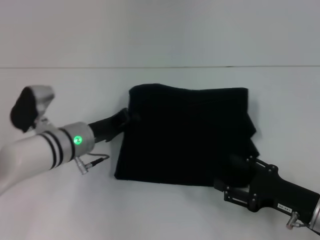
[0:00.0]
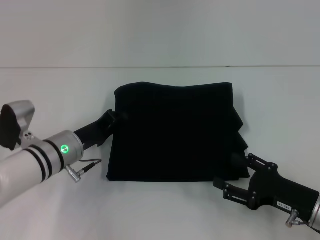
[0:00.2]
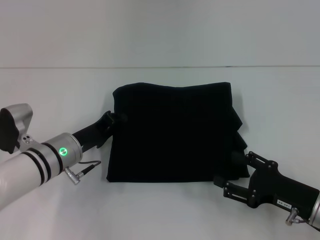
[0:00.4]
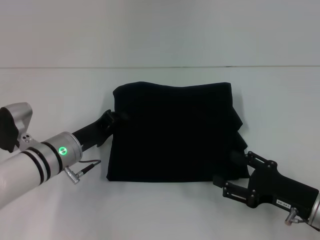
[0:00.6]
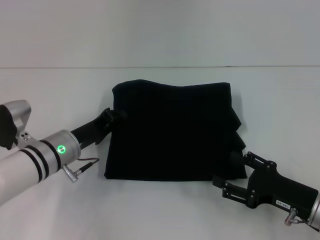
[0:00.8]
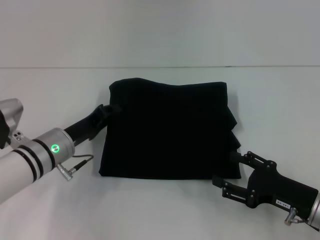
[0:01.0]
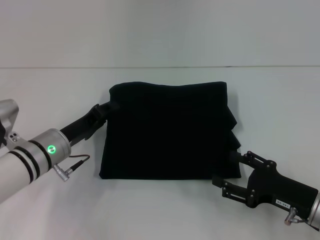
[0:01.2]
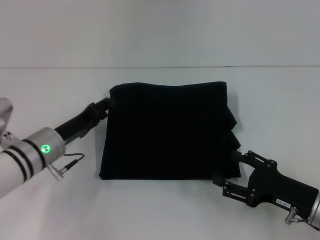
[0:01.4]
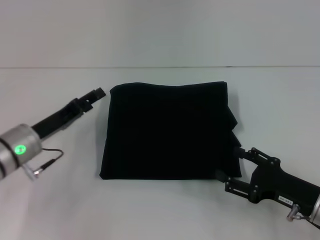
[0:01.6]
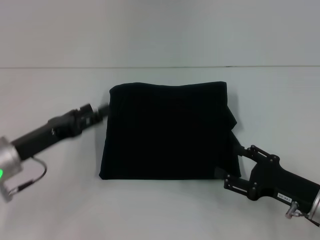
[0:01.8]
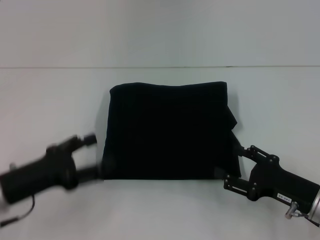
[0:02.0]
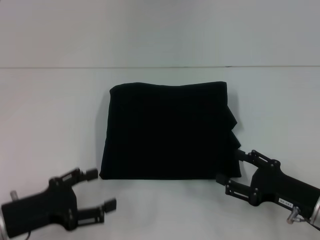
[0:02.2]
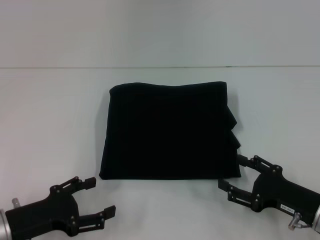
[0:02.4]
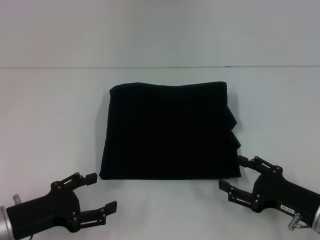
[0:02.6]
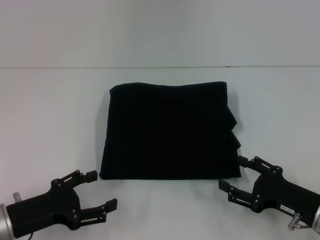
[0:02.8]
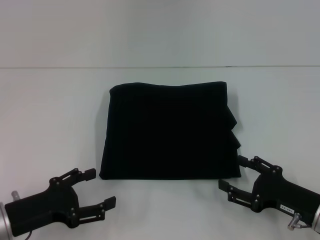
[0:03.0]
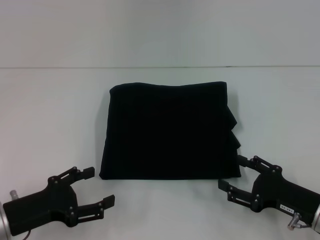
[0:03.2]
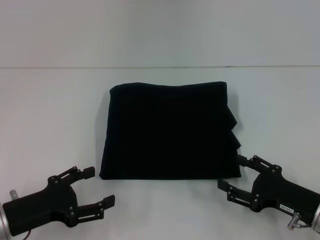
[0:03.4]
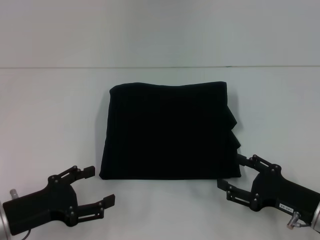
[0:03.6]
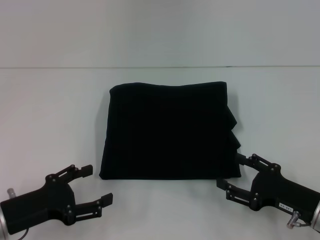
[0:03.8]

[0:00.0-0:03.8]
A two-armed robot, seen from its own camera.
0:00.0 to 0:01.2: There are only small adjustments of the grippers.
0:01.2 to 0:02.6: The left gripper travels backward and to the left by about 15 cm, and opens its fingers.
0:02.6 to 0:03.8: The two grippers keep their place.

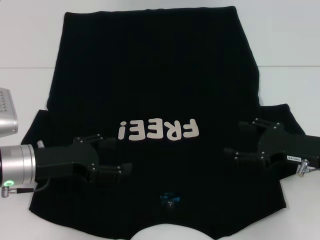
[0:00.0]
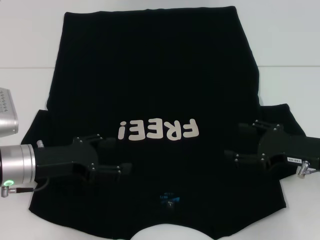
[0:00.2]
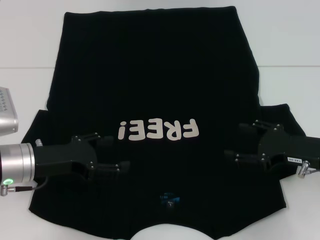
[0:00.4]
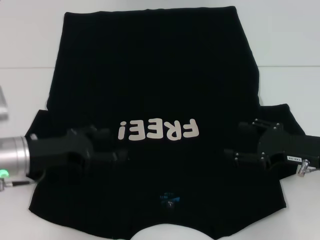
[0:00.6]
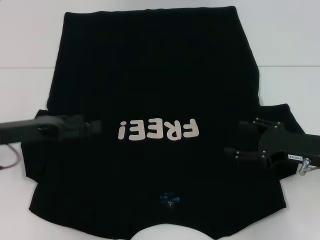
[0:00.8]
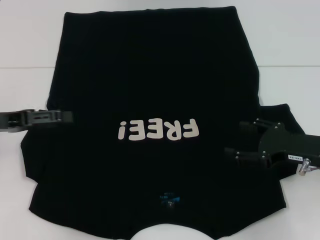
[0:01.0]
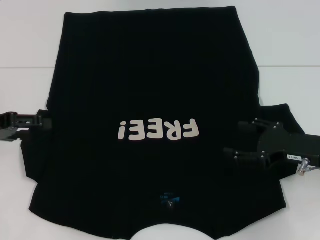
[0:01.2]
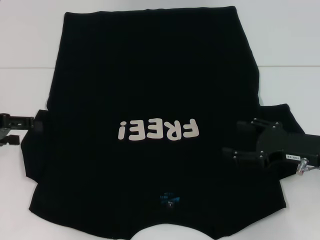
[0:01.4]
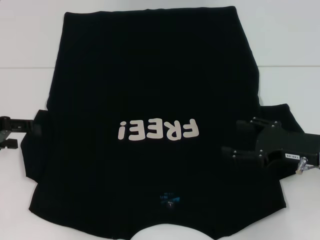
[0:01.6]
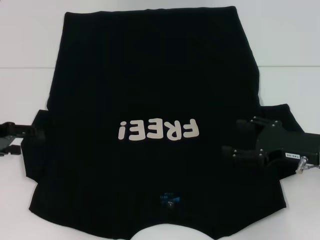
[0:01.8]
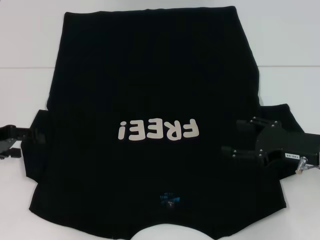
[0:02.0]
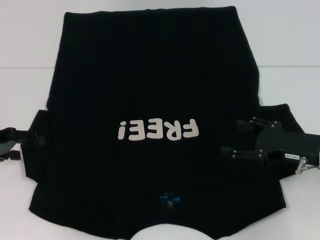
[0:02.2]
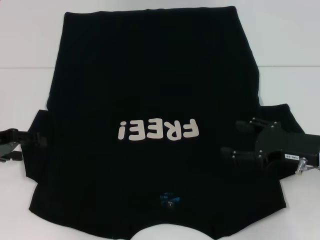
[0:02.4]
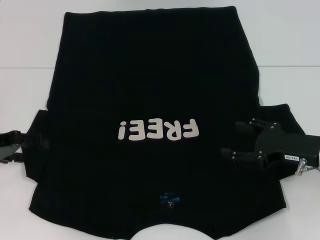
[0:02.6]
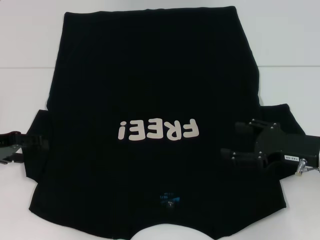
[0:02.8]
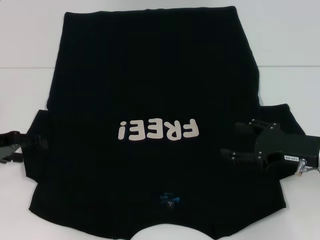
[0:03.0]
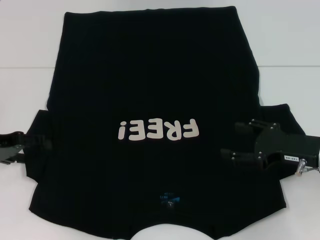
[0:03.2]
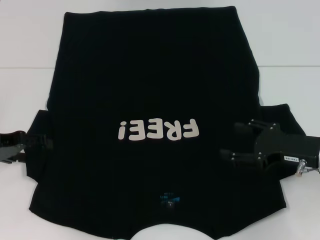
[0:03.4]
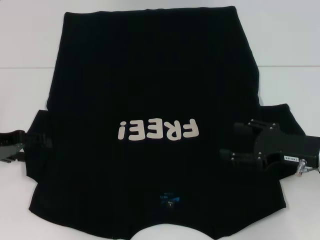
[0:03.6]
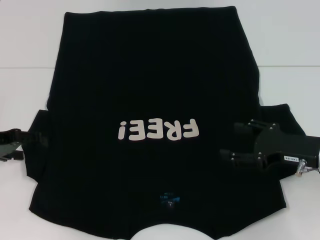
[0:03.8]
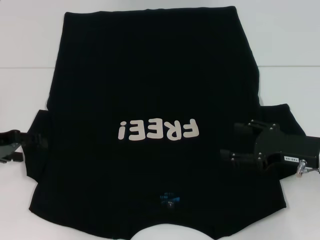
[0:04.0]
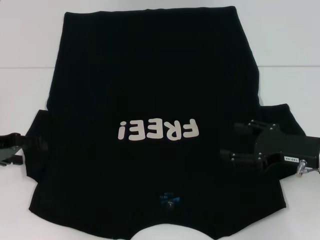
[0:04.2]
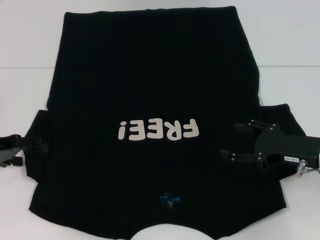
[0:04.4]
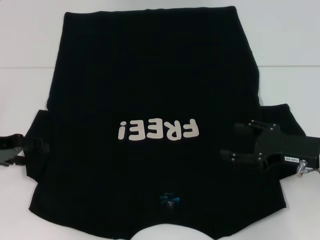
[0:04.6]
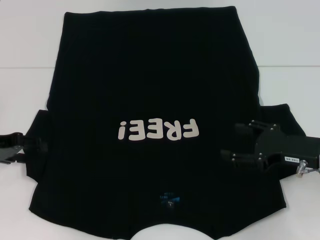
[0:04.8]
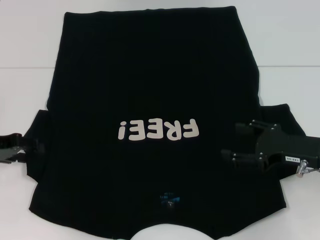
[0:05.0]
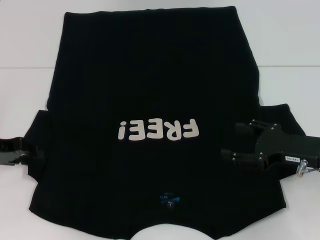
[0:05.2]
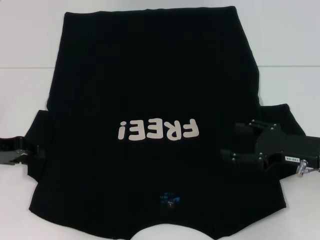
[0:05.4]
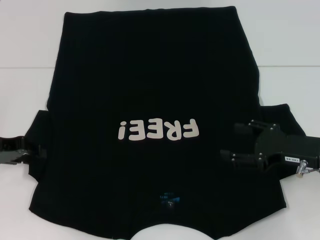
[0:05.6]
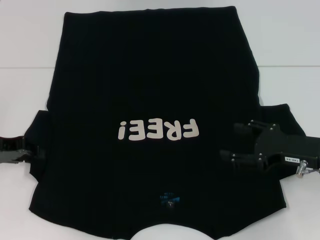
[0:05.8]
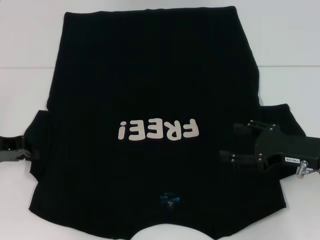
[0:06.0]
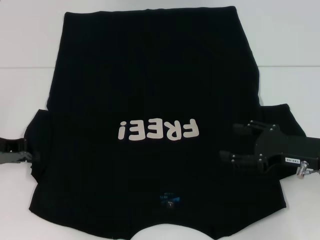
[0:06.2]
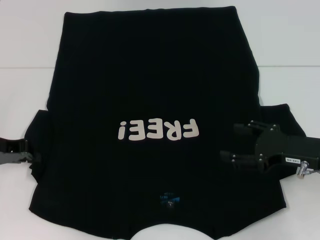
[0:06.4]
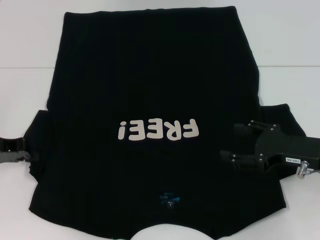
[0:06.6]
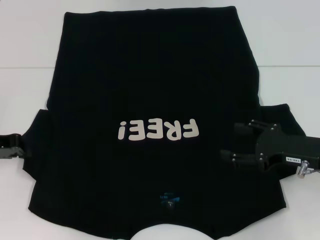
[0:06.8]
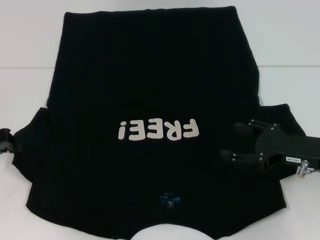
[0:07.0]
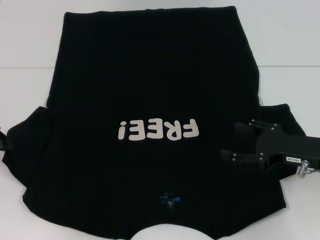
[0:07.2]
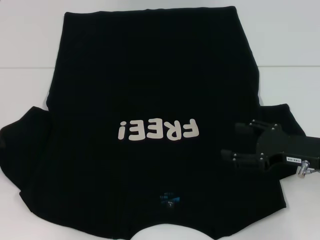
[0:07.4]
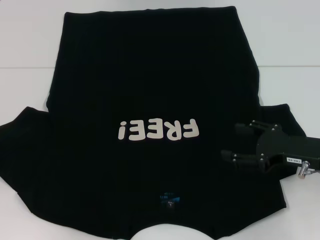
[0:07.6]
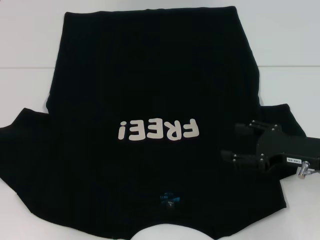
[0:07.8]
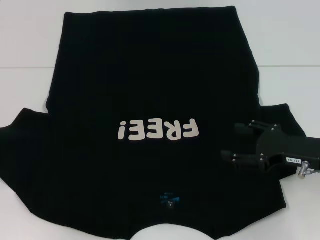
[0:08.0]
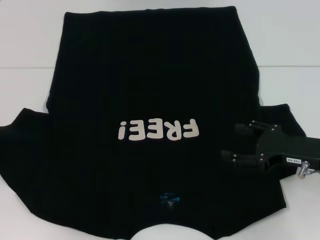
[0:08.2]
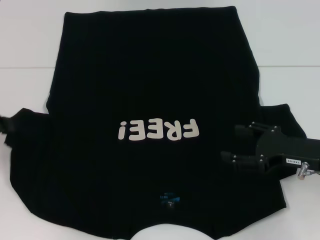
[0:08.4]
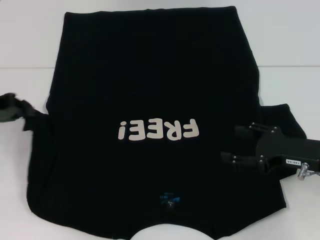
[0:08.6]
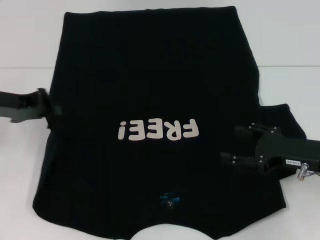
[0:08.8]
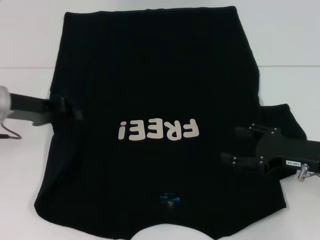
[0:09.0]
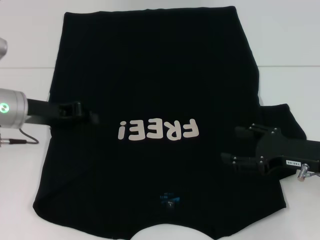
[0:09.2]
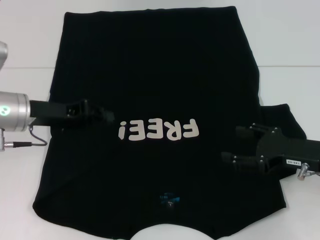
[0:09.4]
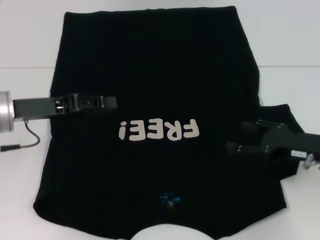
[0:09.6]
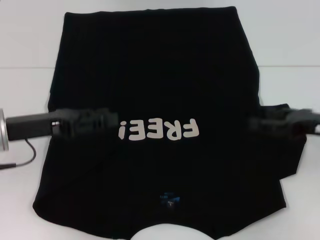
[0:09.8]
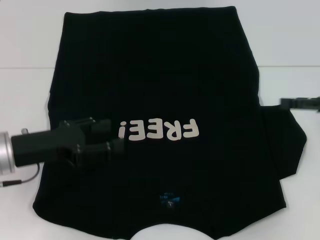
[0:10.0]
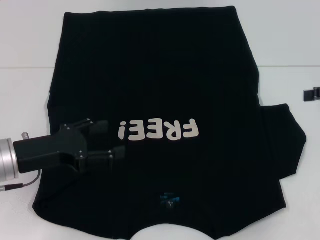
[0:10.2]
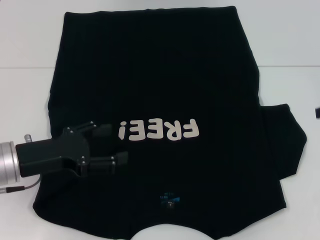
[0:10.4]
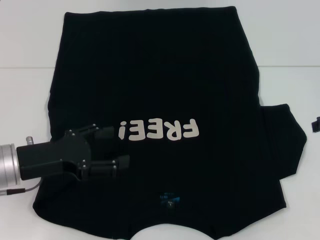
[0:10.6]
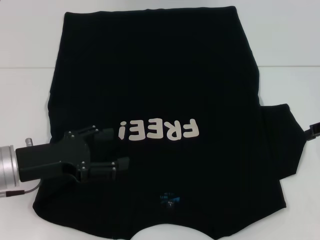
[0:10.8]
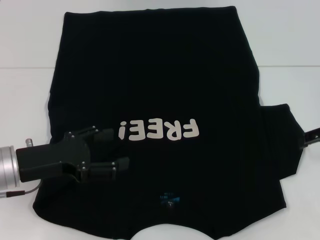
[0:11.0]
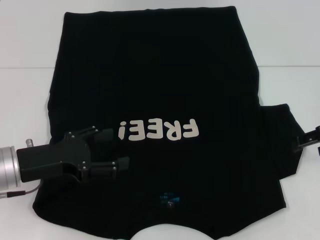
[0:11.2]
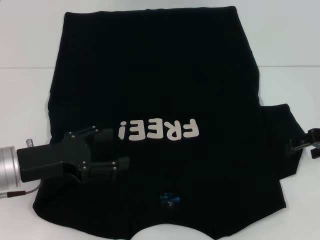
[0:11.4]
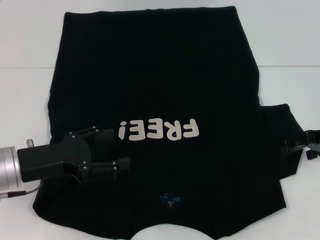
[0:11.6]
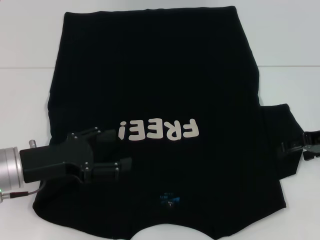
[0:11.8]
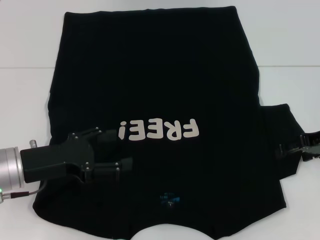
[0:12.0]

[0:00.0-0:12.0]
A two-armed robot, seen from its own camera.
Step, 0:00.0 to 0:10.0: Fold the bottom left sleeve with your left hand.
0:00.0 to 0:01.6: The left gripper moves to the left and upward, roughly 15 cm.
0:01.6 to 0:03.0: There are only small adjustments of the grippers.
0:03.0 to 0:04.4: Both grippers stay about where they are.
0:04.4 to 0:06.0: The left gripper closes up.
0:06.0 to 0:07.6: The left gripper moves to the left, some 5 cm.
0:07.6 to 0:09.0: The left gripper goes approximately 10 cm to the right.
0:09.0 to 0:10.4: The right gripper is displaced upward, to the right and forward by approximately 15 cm. The left gripper travels backward and downward by about 10 cm, and opens its fingers.
0:10.4 to 0:12.0: The right gripper moves downward, some 5 cm.

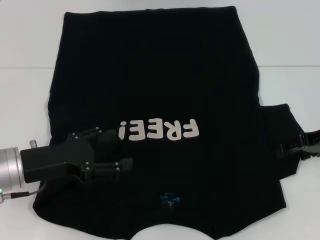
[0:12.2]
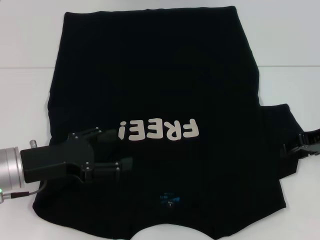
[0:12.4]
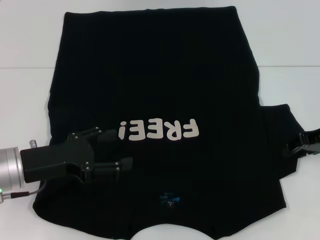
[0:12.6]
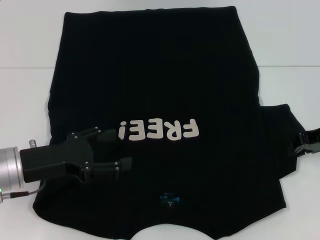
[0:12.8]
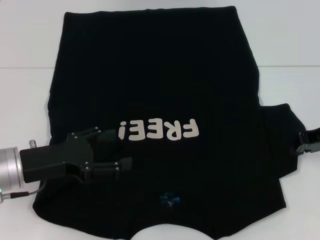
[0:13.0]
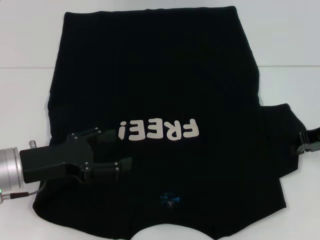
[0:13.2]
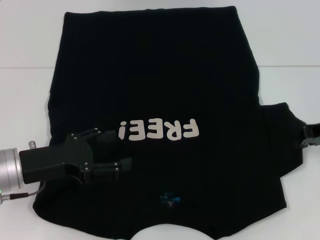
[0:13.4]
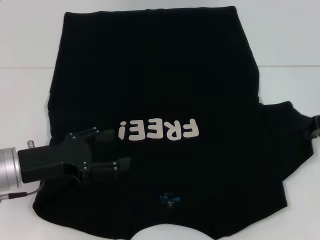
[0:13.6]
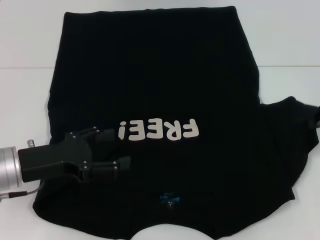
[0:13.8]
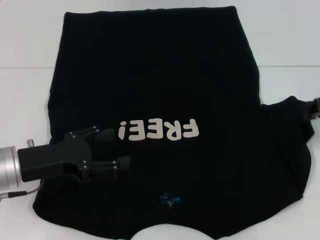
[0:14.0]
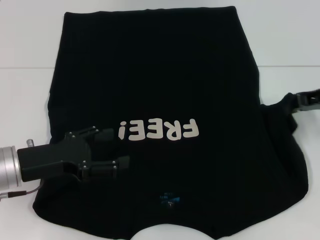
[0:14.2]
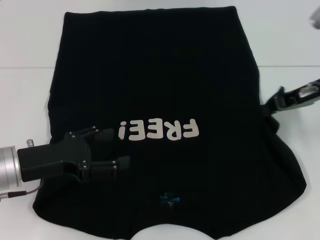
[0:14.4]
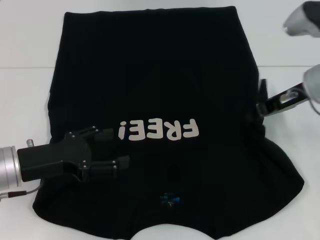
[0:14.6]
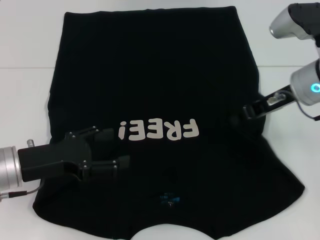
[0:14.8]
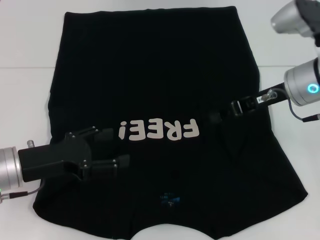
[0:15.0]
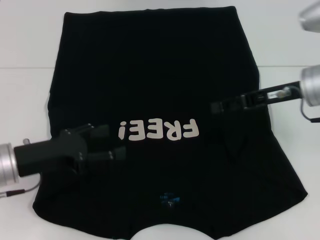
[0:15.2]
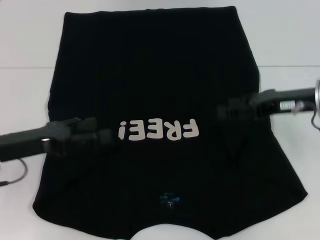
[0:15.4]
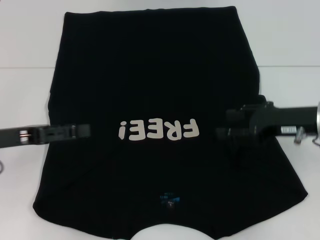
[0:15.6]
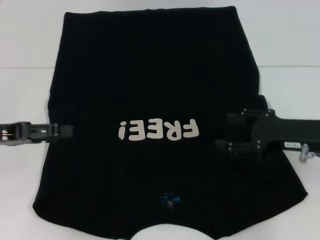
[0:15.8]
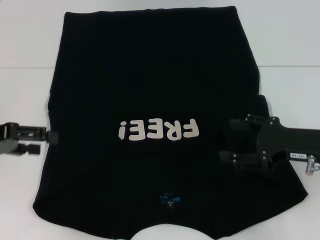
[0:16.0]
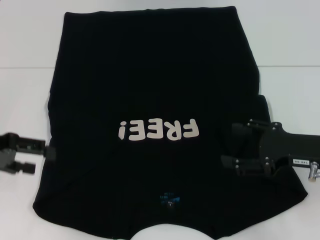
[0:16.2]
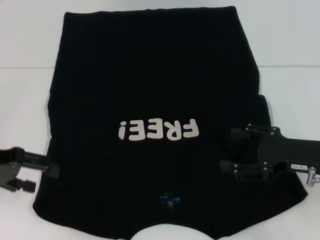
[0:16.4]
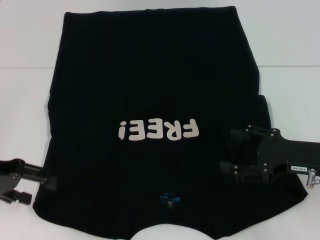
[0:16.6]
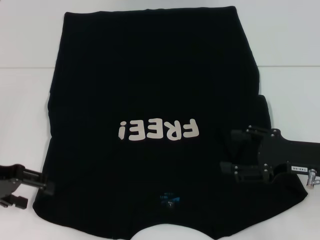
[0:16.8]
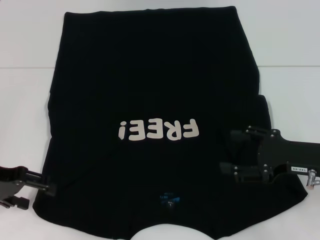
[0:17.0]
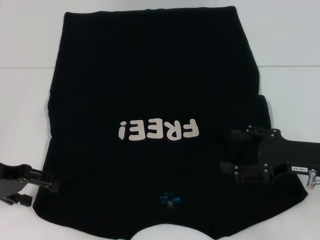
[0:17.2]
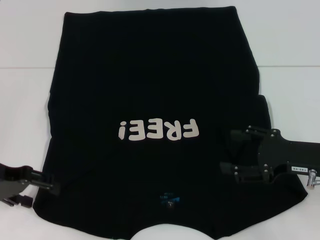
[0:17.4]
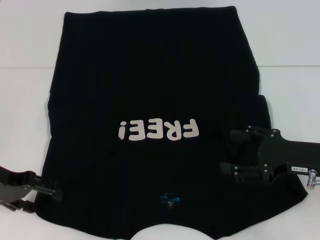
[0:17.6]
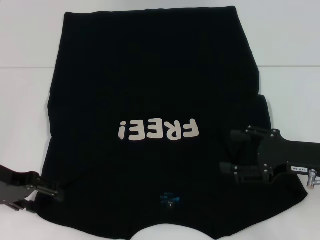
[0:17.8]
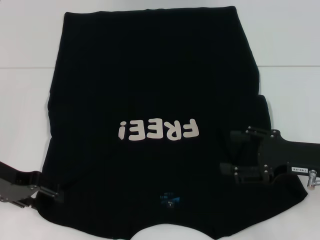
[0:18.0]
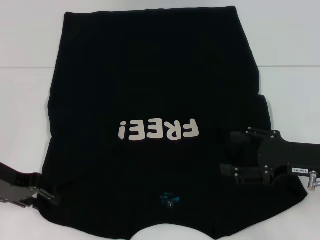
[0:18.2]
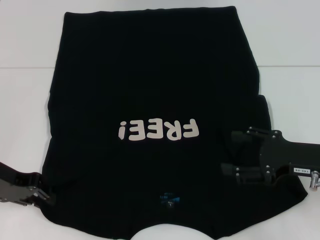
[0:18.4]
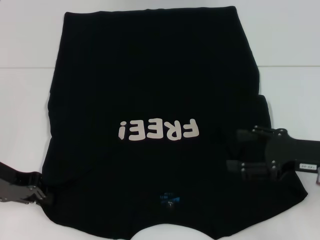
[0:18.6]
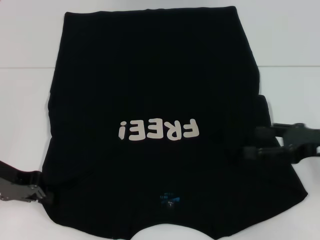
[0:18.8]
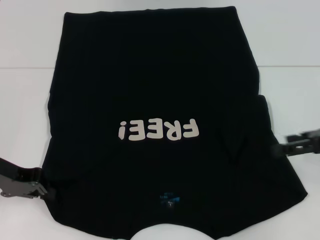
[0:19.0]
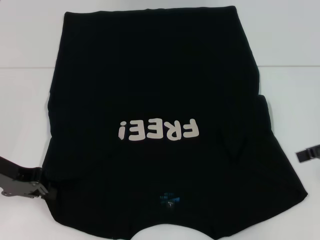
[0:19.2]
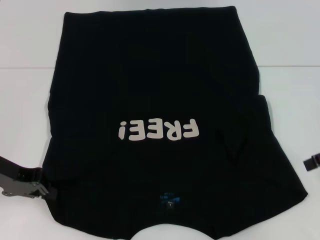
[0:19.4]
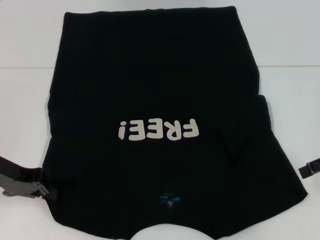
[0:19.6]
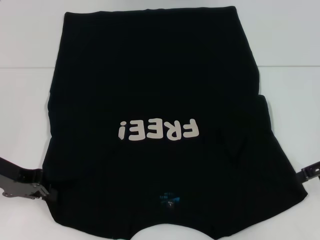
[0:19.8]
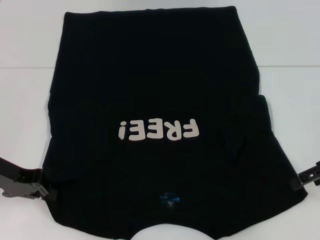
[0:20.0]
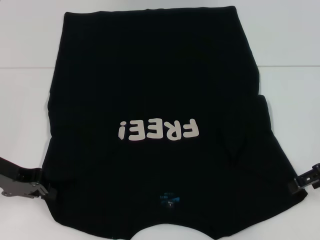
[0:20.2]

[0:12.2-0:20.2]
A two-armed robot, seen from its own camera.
Step, 0:12.2 to 0:15.4: Fold the bottom right sleeve with your right hand.
0:12.2 to 0:13.8: The right gripper closes.
0:13.8 to 0:15.4: The right gripper goes approximately 10 cm to the left, and opens up.
0:15.4 to 0:17.0: The right gripper moves backward and downward, roughly 10 cm, and opens its fingers.
0:17.0 to 0:18.6: The left gripper closes up.
0:18.6 to 0:20.2: The right gripper moves approximately 5 cm. Meanwhile the left gripper closes.
